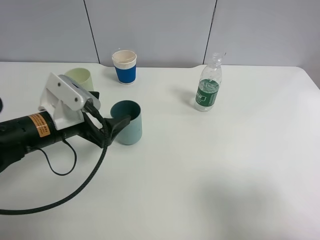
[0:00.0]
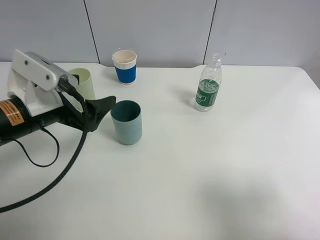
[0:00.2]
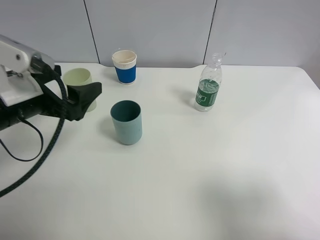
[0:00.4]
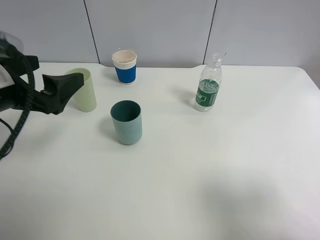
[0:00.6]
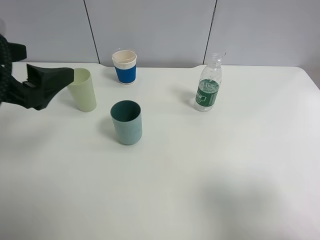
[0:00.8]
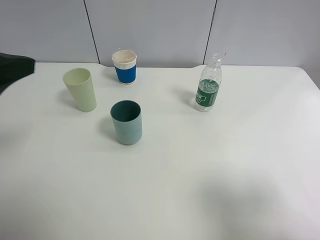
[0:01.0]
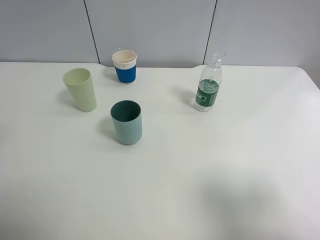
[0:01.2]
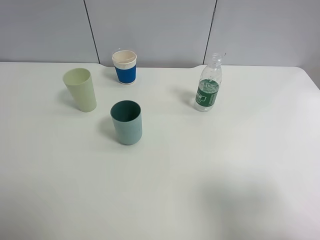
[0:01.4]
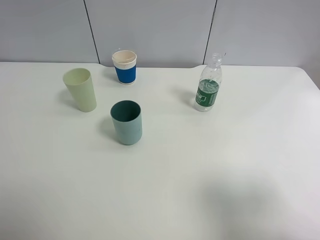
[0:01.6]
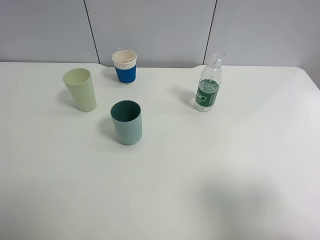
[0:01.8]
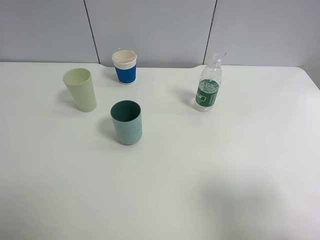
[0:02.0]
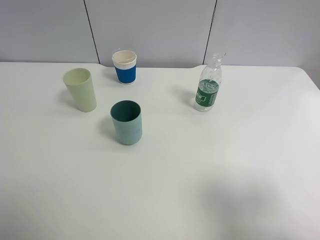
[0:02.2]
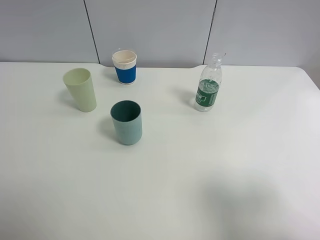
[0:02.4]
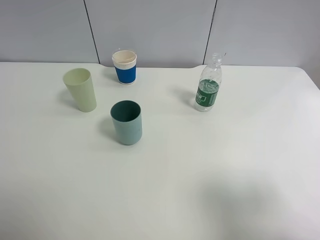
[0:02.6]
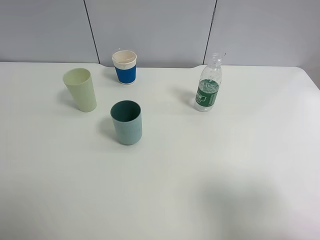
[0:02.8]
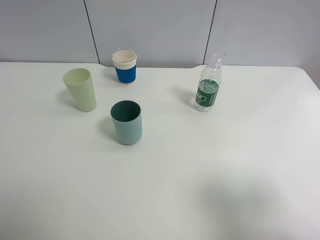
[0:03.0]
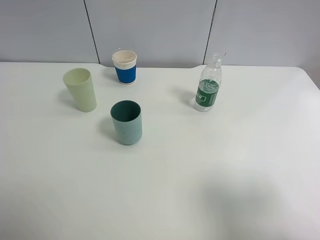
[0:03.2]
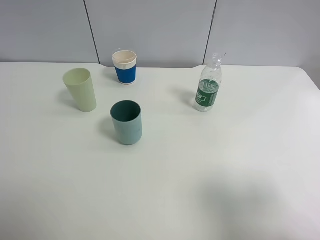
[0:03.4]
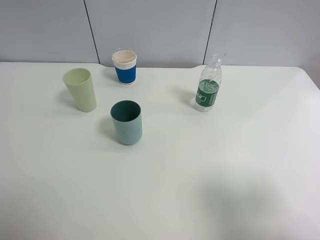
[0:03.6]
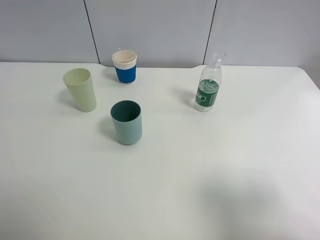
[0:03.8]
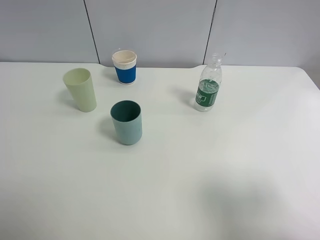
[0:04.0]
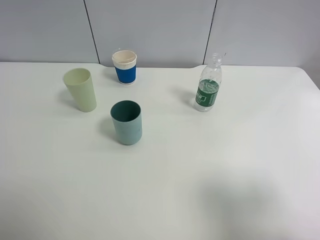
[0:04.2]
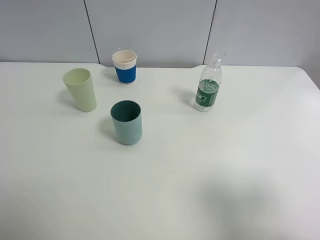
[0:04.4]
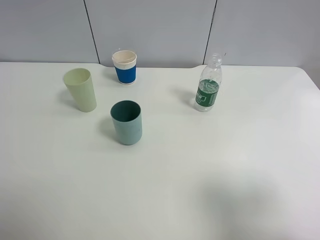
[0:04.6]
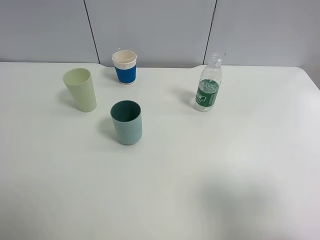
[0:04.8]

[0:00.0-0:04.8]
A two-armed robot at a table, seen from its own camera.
Task of the whole recording: use a clamp to hold the bottle of the drink, pour the beverage into a random cup, then clamp the cup containing the drink and pour the drink into another random cup.
0:00.0 to 0:01.6: The left gripper moves upward, backward and to the left, some 25 cm.
0:03.2 to 0:04.8: Both grippers stay put.

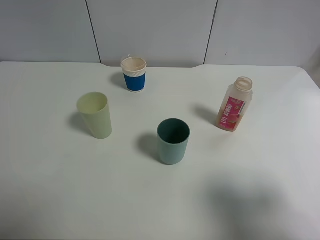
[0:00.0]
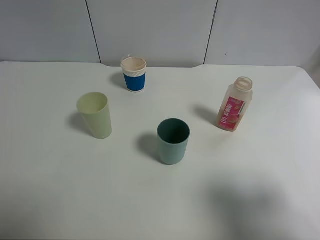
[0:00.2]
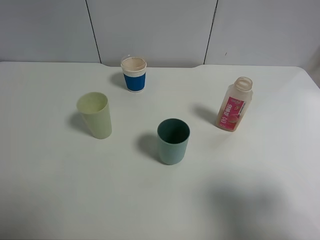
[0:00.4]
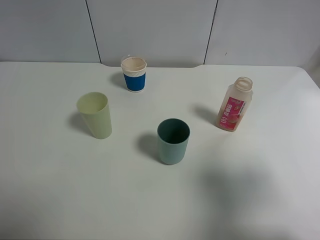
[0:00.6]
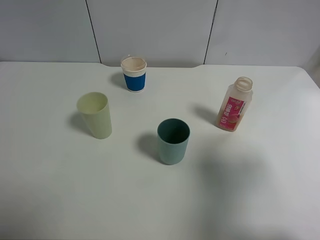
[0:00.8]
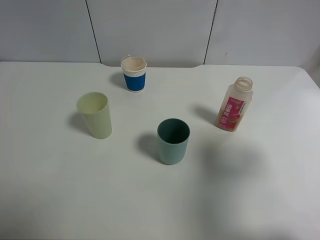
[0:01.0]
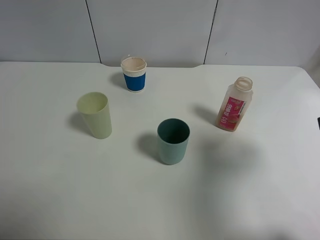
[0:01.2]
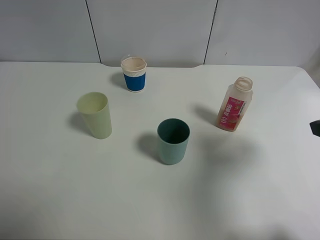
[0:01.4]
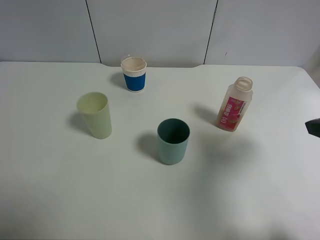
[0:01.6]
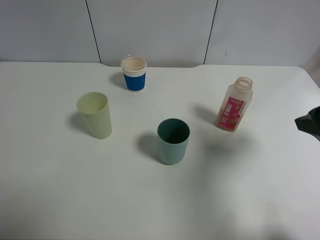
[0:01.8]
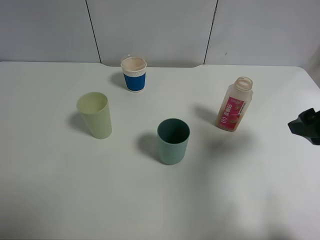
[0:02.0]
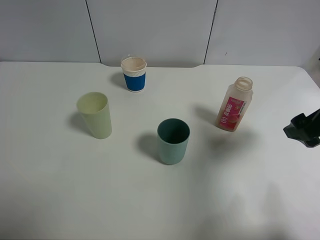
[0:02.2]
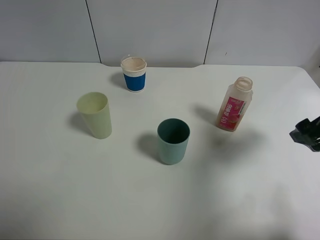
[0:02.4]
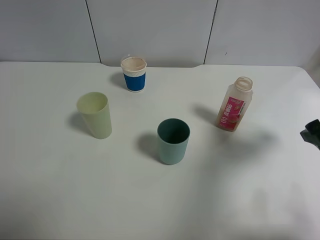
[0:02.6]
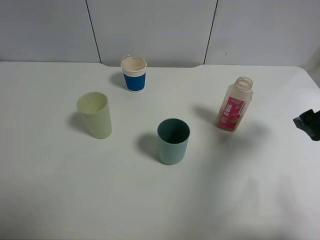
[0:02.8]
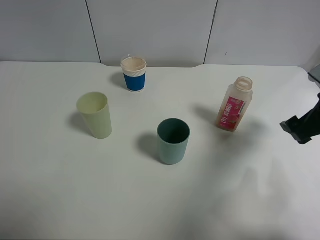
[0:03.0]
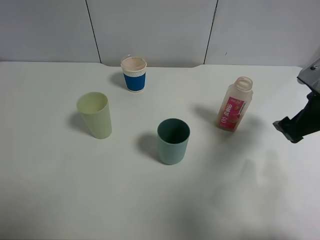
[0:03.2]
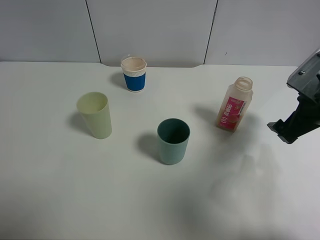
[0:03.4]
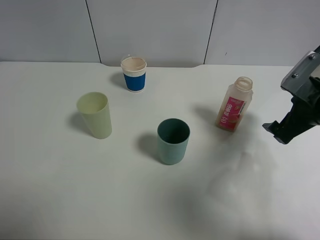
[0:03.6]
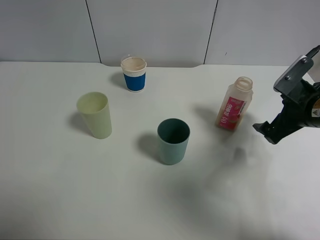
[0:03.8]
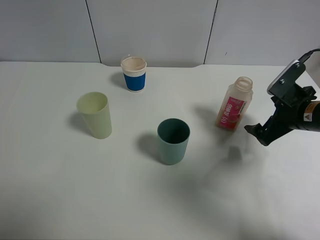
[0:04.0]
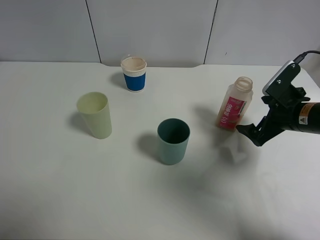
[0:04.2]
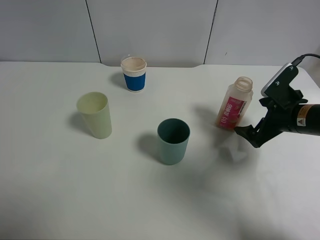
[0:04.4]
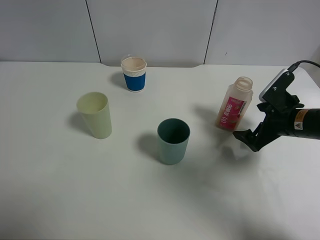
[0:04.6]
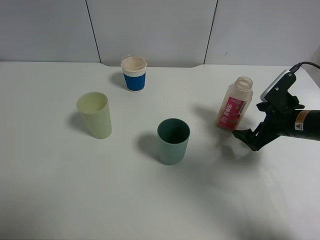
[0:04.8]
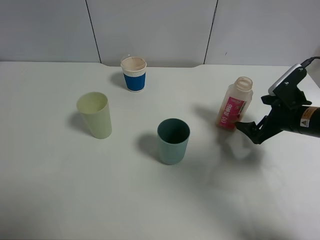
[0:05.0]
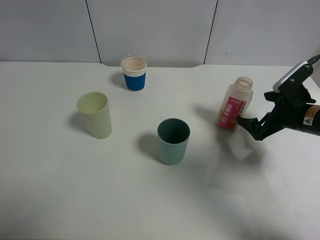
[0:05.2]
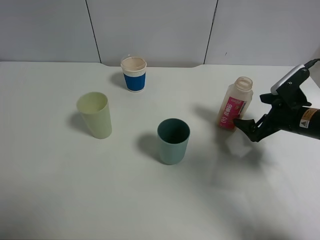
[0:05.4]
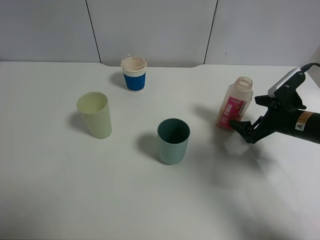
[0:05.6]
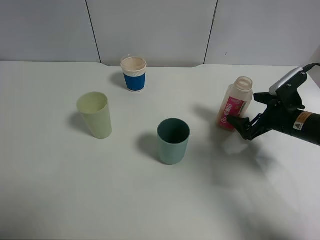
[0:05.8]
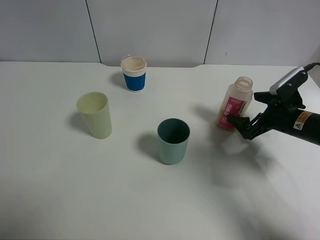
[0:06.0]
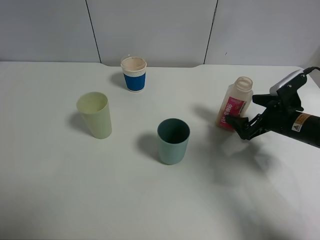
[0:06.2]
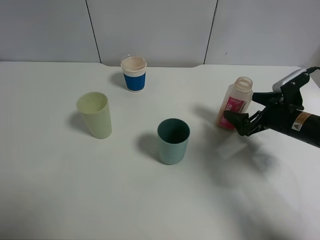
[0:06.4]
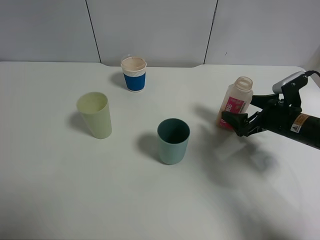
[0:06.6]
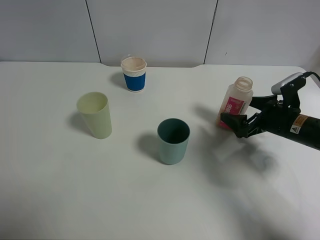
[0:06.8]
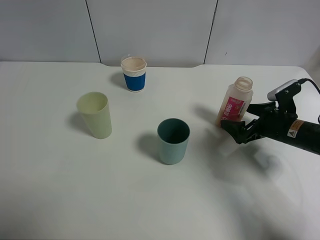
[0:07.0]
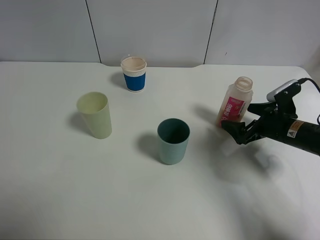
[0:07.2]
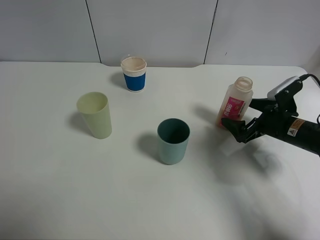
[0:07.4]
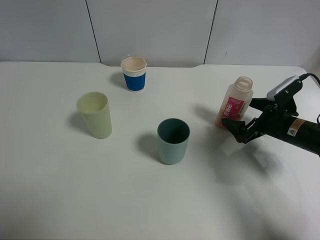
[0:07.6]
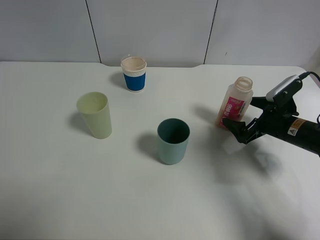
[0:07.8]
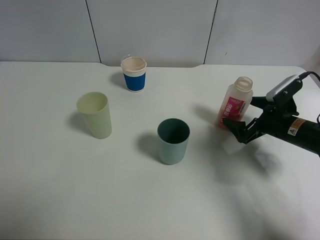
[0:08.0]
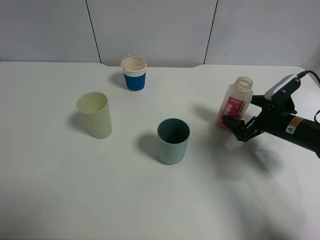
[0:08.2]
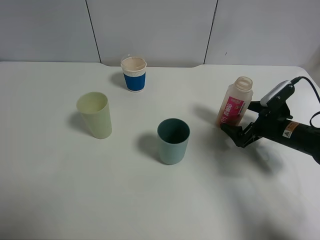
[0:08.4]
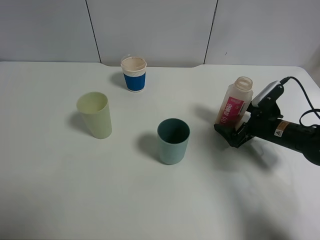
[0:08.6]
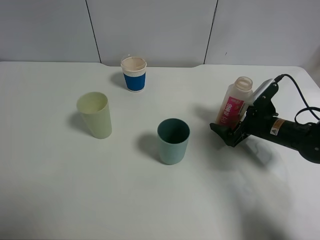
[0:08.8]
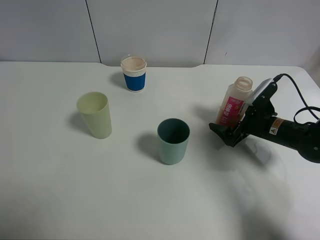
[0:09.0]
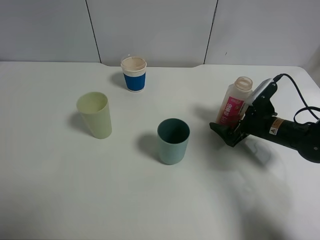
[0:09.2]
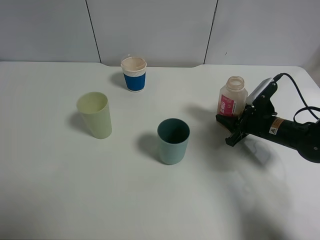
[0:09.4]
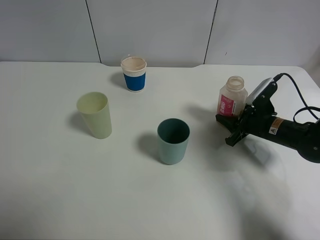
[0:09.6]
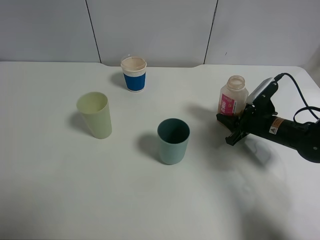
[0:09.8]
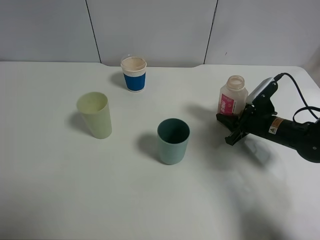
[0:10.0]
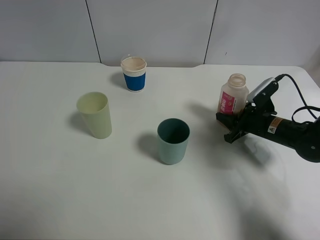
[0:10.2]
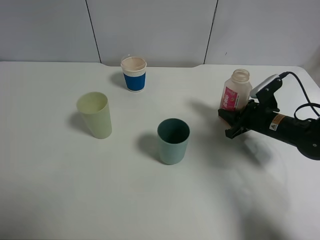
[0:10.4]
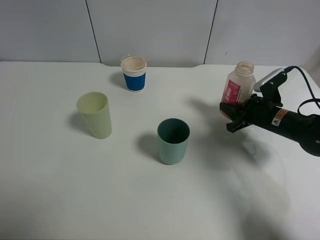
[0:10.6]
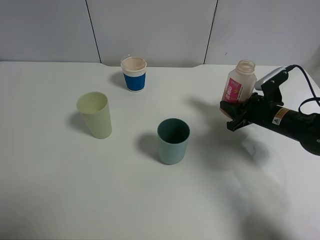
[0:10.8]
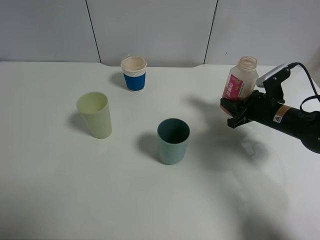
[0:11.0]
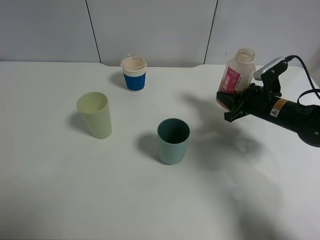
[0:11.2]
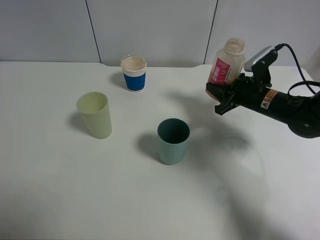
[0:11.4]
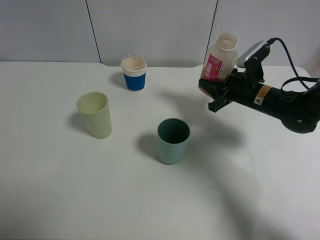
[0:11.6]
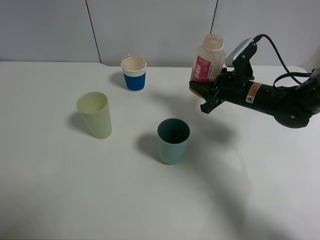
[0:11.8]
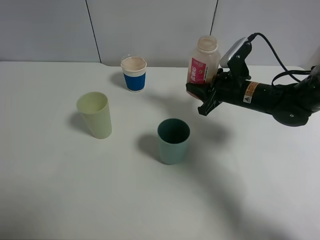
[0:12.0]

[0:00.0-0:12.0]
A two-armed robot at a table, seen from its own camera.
Task of the whole recording: use a clamp to hold the bottle of the drink, pour the beverage into a random cup, then clamp the cup containing the drink and pour the drink into another random cup.
Step, 0:00.0 to 0:11.0: Pick up the green plastic cup bottle with right gripper.
0:00.0 to 0:01.6: The right gripper goes roughly 15 cm forward.
0:01.6 to 0:03.0: The right gripper goes some 10 cm forward and downward.
0:03.0 to 0:04.4: The right gripper shifts roughly 10 cm downward.
0:06.0 to 0:09.0: The grippers make only small movements.
0:09.0 to 0:10.4: The right gripper closes.
0:10.4 to 0:12.0: The right gripper goes approximately 10 cm to the left and upward.

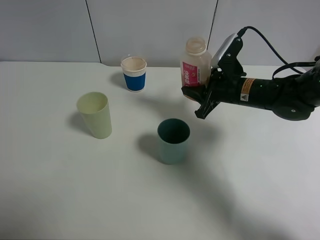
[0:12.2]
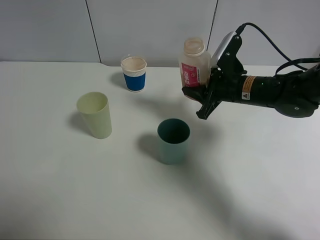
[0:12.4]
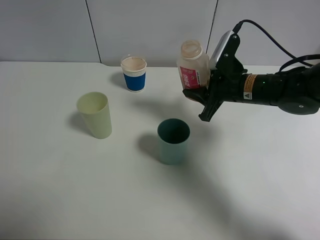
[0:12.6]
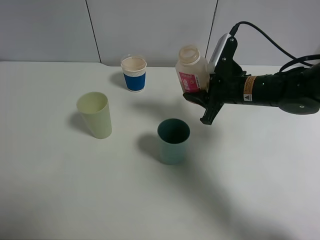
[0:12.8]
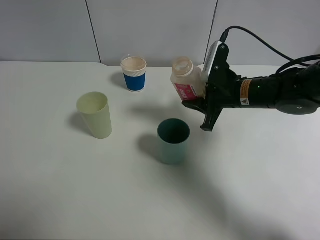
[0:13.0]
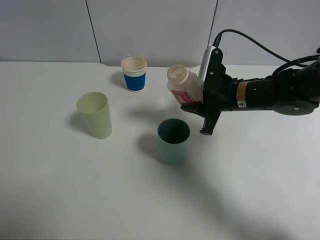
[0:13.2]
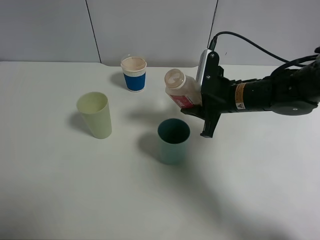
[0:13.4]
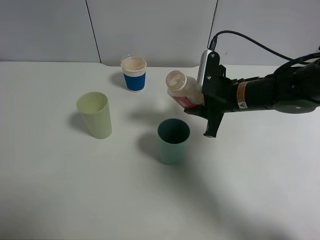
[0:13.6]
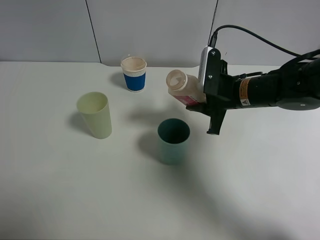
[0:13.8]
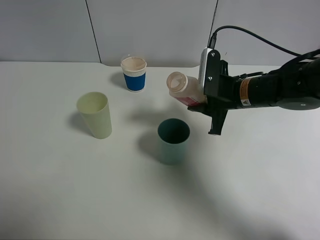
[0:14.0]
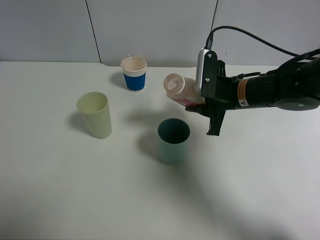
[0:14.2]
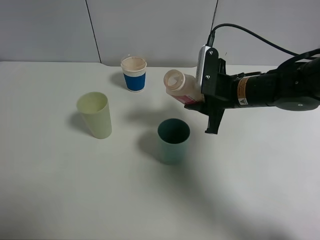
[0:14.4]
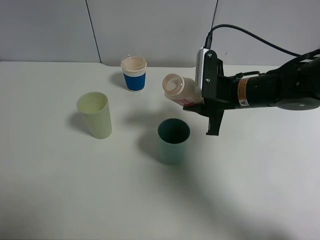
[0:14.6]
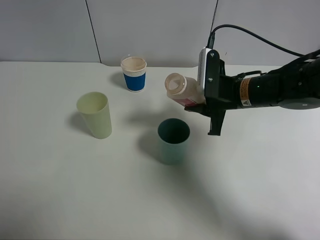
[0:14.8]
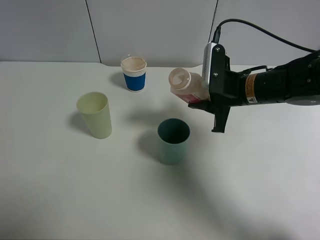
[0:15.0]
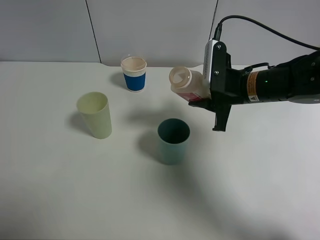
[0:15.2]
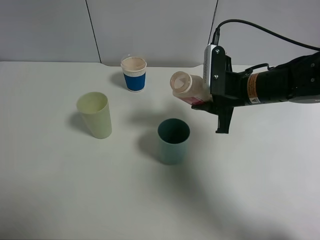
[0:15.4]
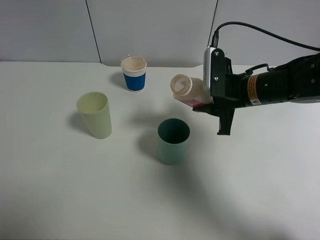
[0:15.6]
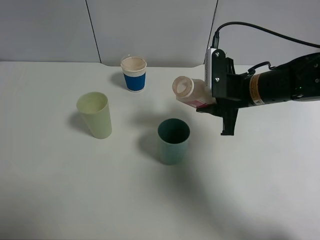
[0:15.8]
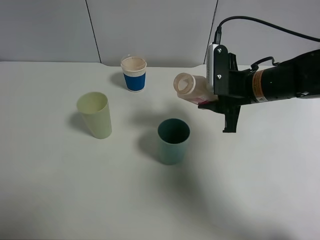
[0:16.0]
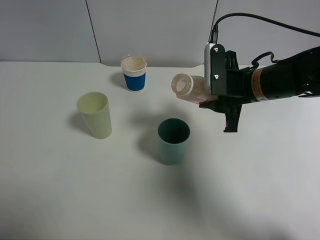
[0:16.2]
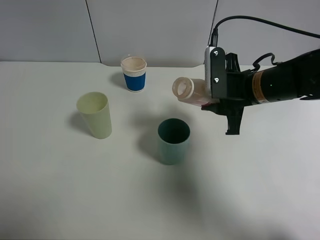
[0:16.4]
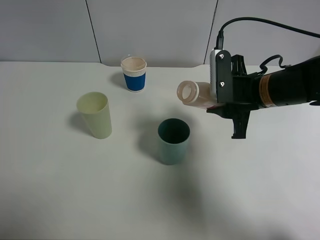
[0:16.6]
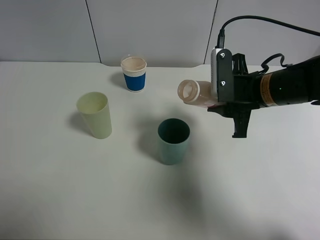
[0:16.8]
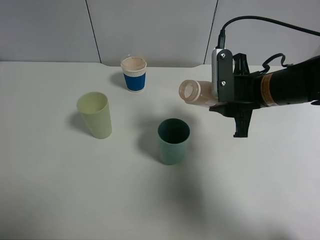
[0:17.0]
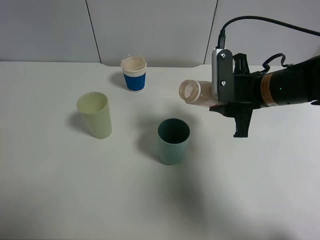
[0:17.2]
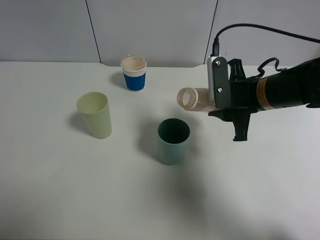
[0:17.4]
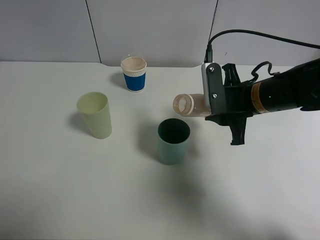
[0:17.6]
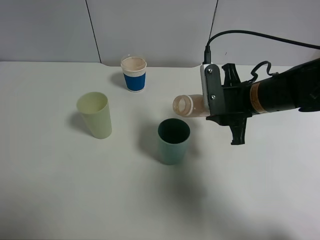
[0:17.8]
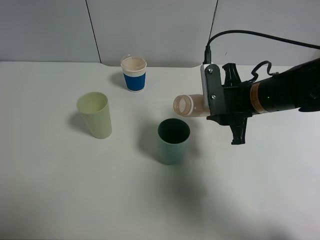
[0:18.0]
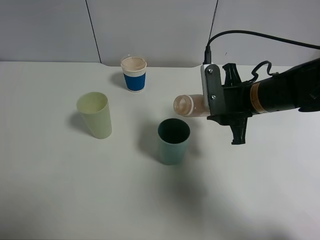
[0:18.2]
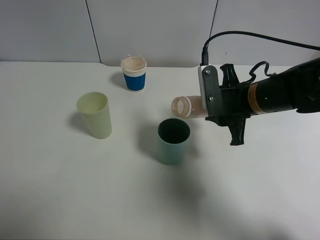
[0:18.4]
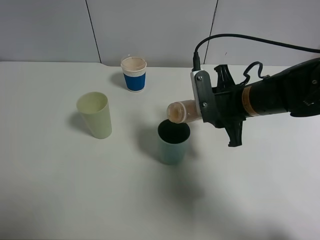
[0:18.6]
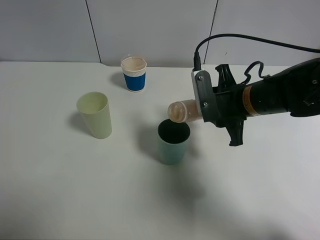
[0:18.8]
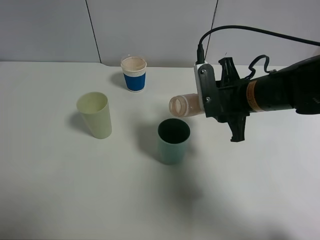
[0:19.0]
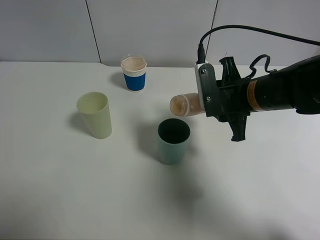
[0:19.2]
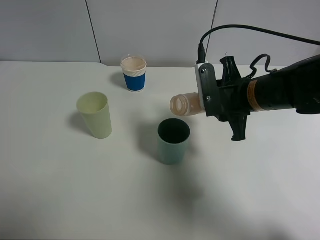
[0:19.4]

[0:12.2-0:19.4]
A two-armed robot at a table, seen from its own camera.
Task of the whole recording: use a clamp to hold the bottle of the drink, pour the beverage into a random cup, then clamp the cup containing the drink and pour the drink into another random cup.
0:13.6 to 0:16.6: The grippers stay close to where they were, moving slightly.
0:16.6 to 0:19.4: The grippers stay close to where they were, moving slightly.
